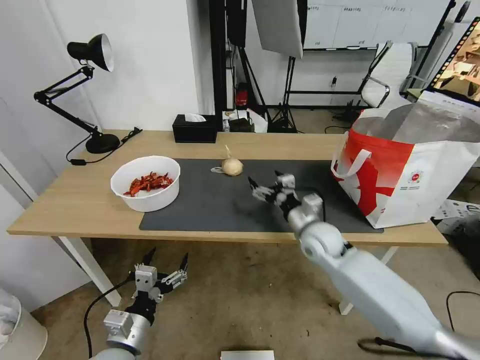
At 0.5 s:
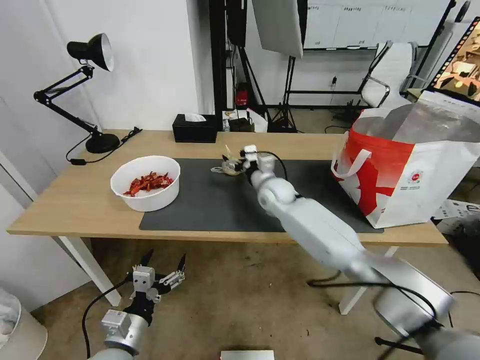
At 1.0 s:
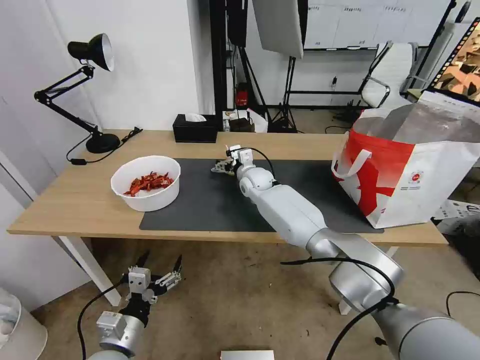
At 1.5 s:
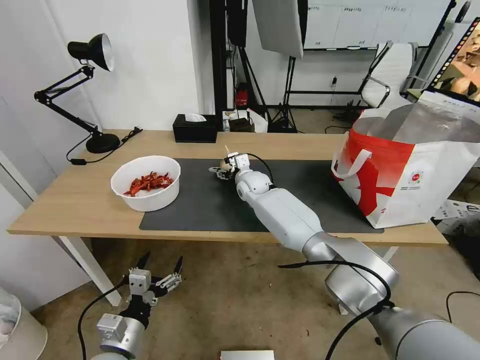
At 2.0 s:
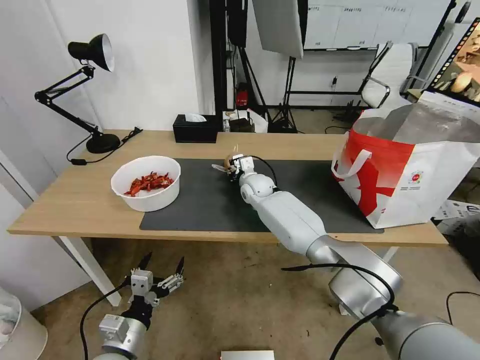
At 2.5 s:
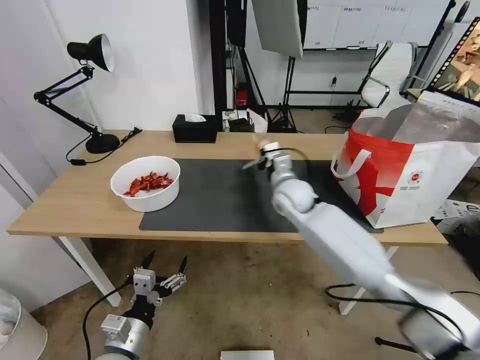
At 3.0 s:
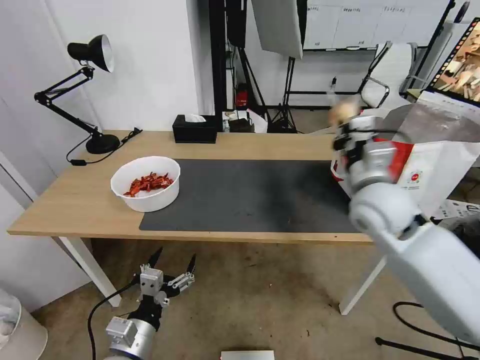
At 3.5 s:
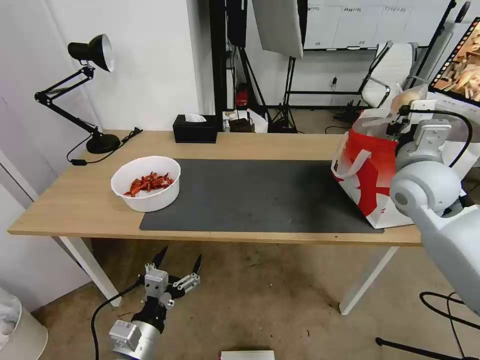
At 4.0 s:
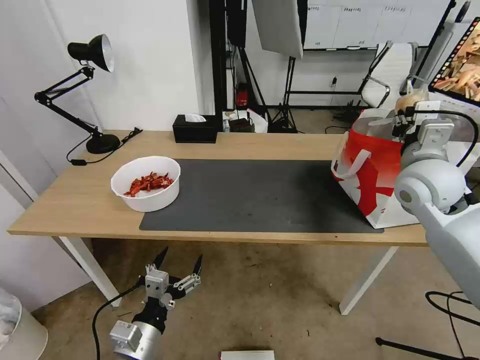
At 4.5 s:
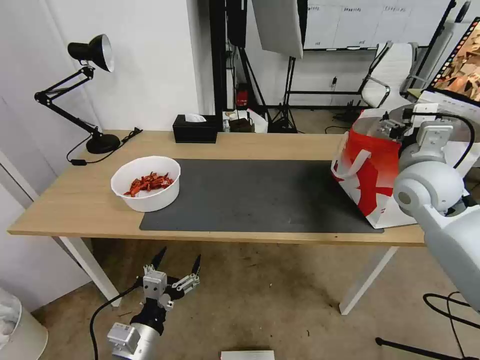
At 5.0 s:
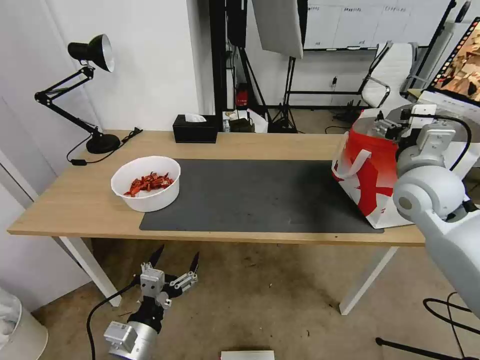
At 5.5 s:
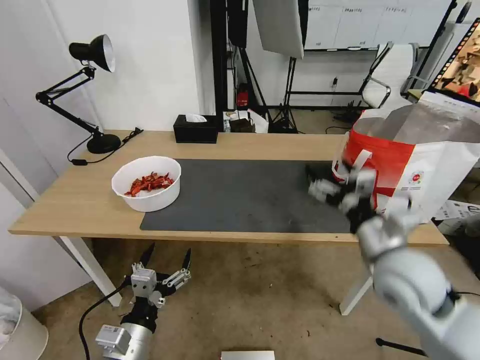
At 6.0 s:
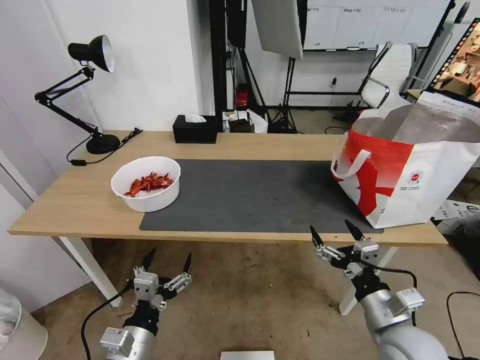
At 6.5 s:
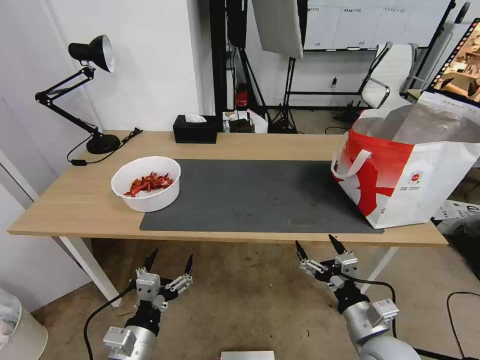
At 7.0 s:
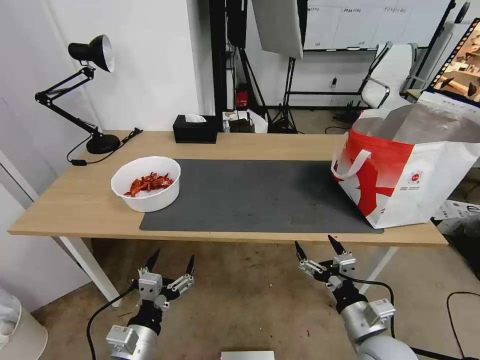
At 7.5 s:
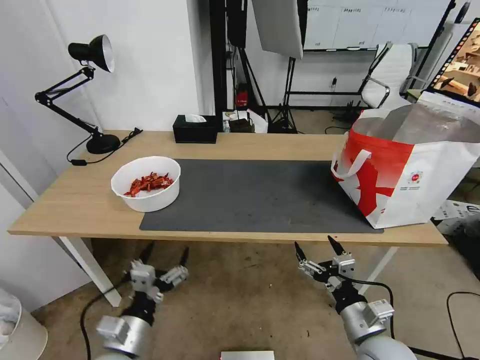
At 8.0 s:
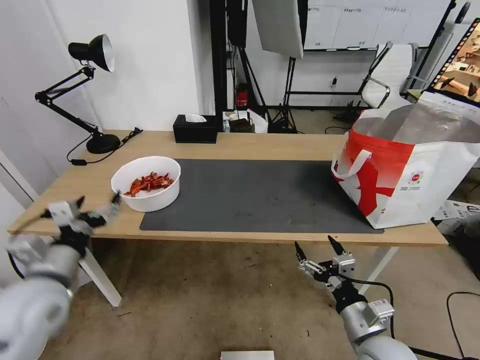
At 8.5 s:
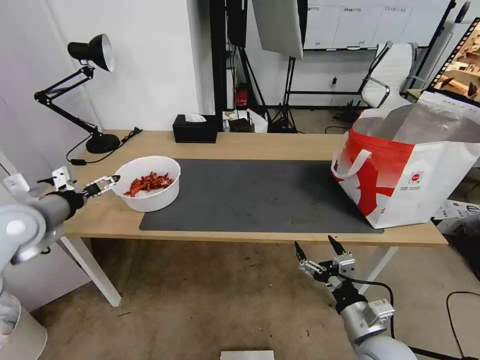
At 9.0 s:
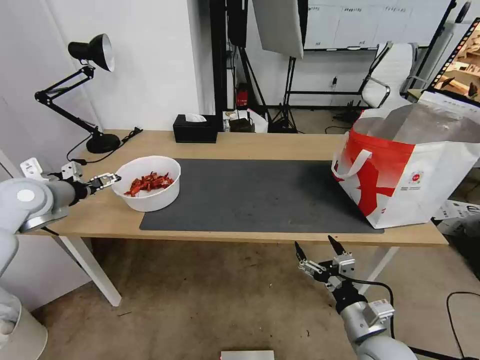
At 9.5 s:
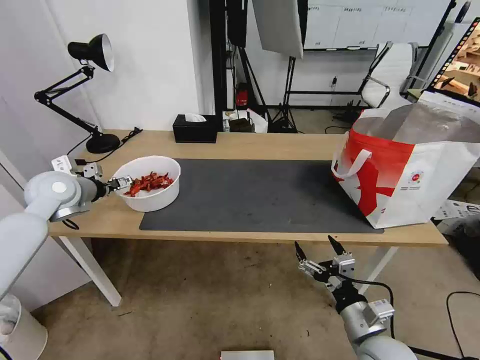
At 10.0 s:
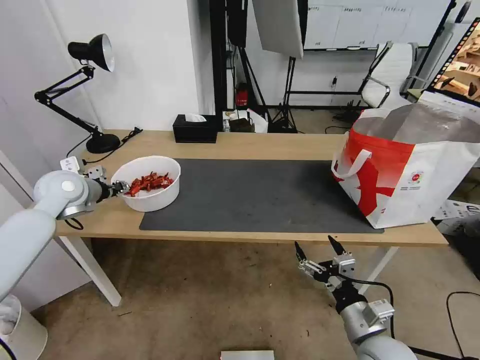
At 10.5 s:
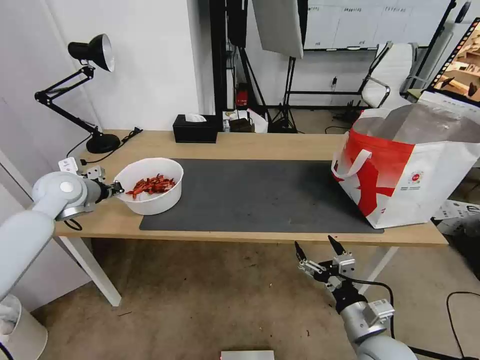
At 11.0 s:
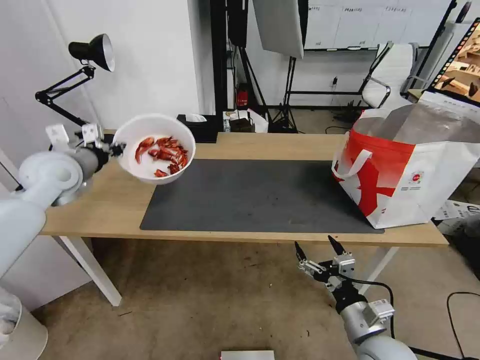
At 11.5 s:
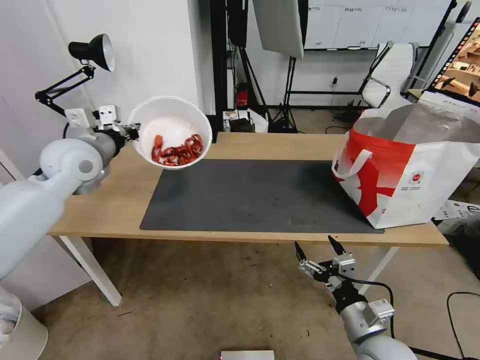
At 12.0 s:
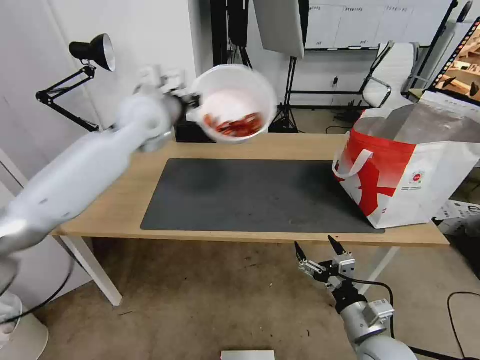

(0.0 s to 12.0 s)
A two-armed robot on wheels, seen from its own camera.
Task of the whole recording: Pick up the trash from the table and place it into the takeout bag.
0.0 s - 2.0 s: The right gripper travels forward and to the left by about 25 cm, and closes its fingers.
2.0 s - 4.0 s: The right gripper moves to the right, upward and backward, roughly 40 cm.
4.0 s - 6.0 s: The right gripper moves backward and downward, approximately 30 cm, and opens its fingers.
6.0 s - 8.0 s: The right gripper moves about 5 cm, while the left gripper moves to the left, upward and forward, approximately 20 cm.
8.0 s - 10.0 s: The left gripper is displaced forward by about 25 cm, and closes up.
10.0 s - 12.0 s: The left gripper shifts some 25 cm to the right and upward, and closes its fingers.

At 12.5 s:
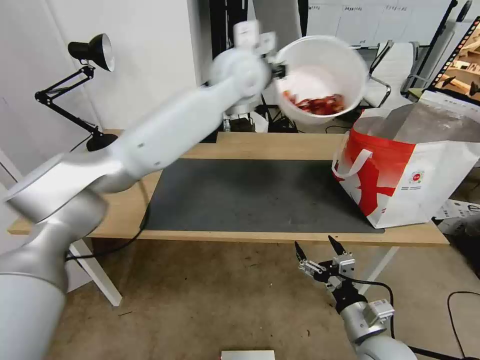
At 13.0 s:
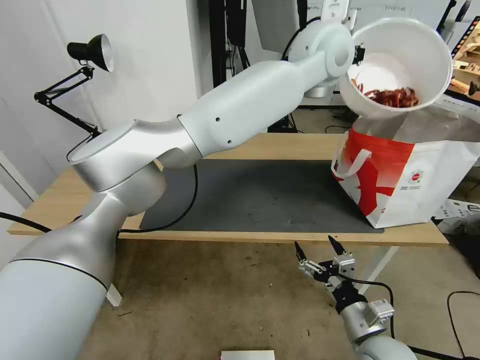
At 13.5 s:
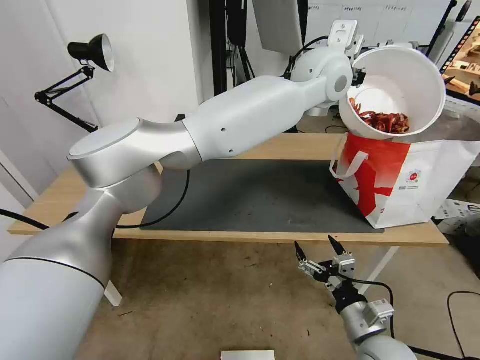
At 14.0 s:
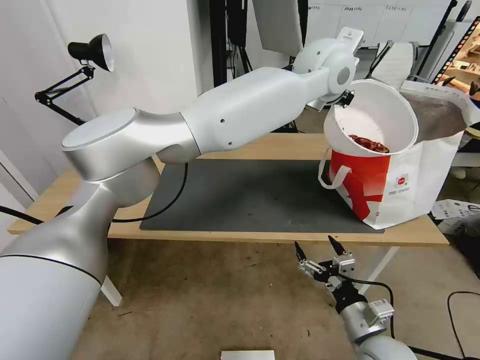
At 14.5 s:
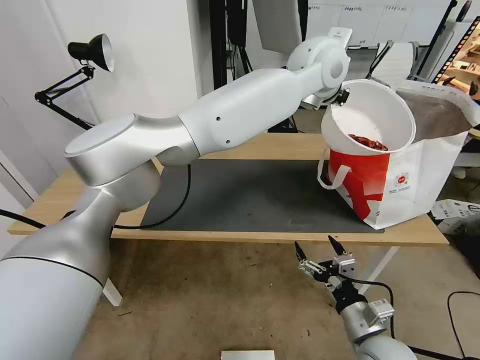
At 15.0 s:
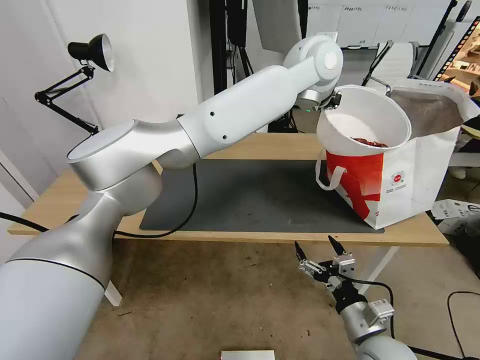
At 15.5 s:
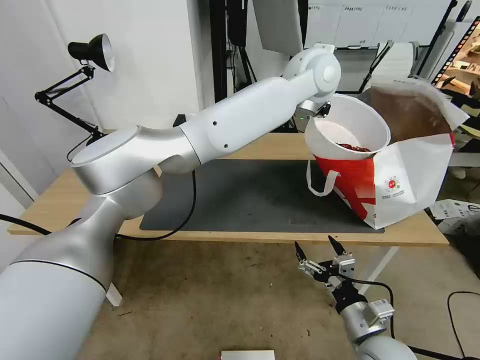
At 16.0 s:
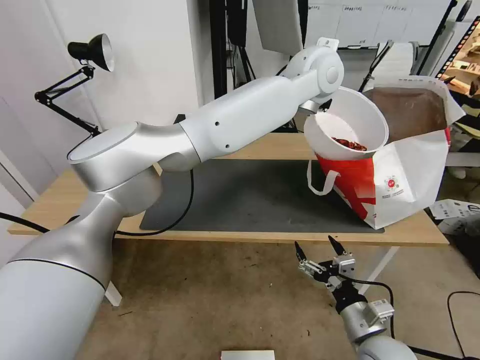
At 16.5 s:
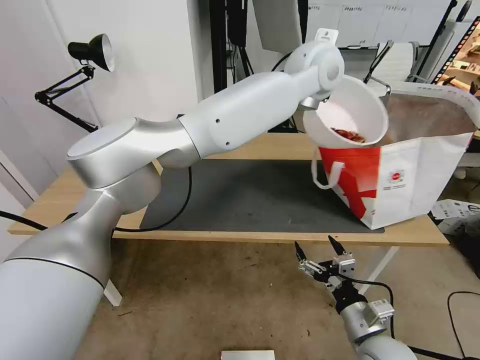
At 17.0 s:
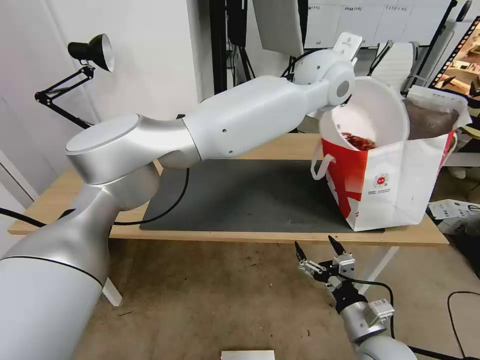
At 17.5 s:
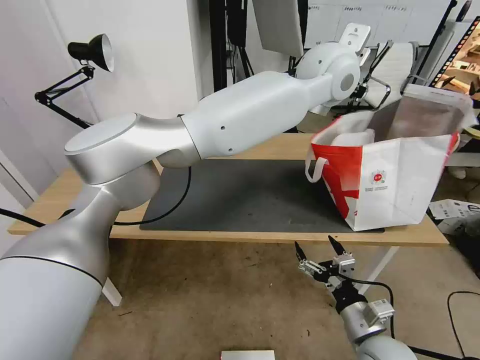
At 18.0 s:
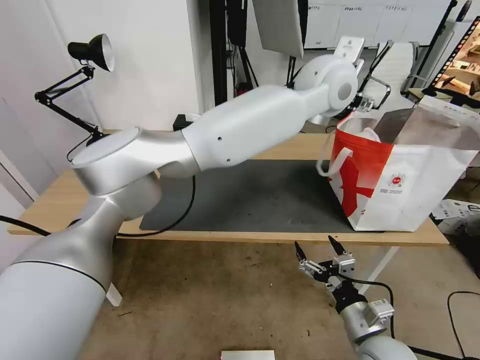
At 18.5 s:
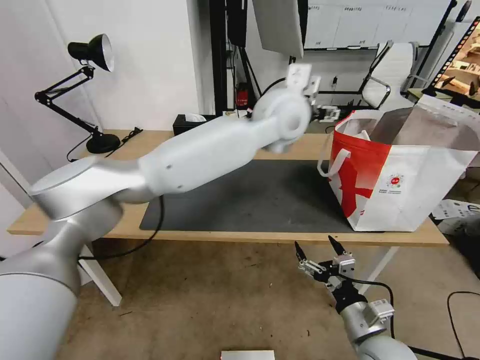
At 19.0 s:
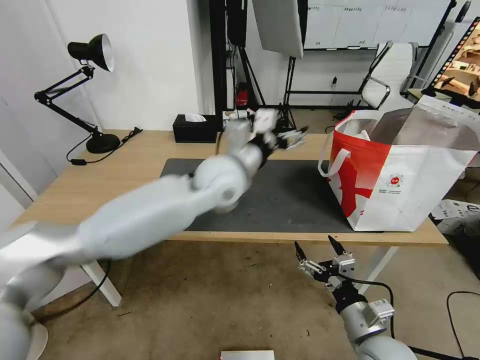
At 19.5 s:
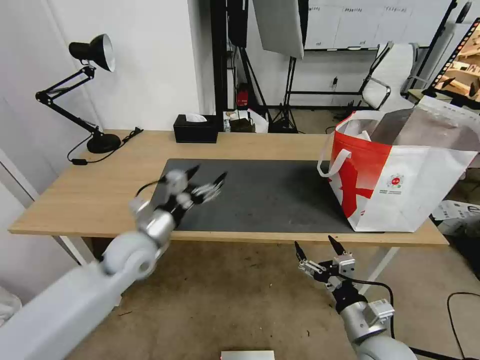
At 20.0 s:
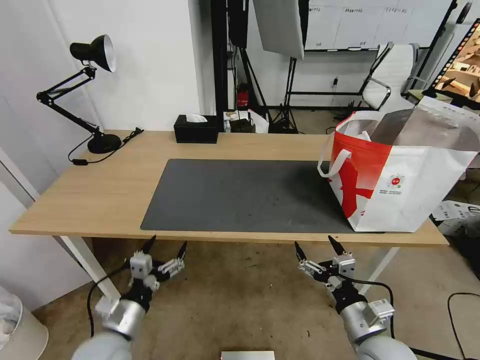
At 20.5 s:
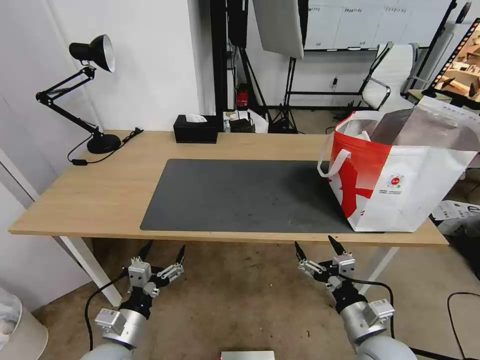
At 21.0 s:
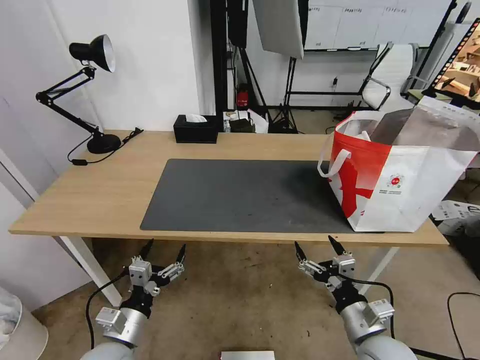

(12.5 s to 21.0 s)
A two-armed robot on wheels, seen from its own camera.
Task of the whole recording: Pick up the trash from the table and place it into the takeout bag.
12.5 s - 14.5 s: The left gripper heads to the right, covering about 15 cm.
14.5 s - 16.5 s: There are only small adjustments of the grippers.
16.5 s - 19.0 s: The left gripper goes about 25 cm to the left, downward and backward, and opens its fingers.
19.0 s - 21.0 s: The left gripper goes approximately 40 cm downward, backward and to the left.

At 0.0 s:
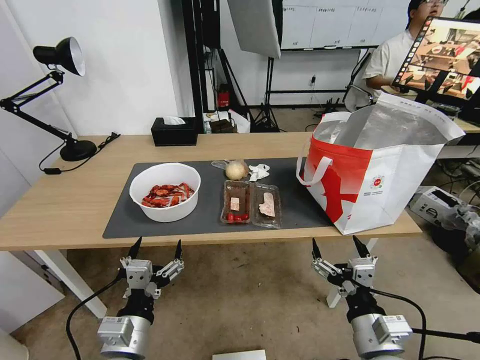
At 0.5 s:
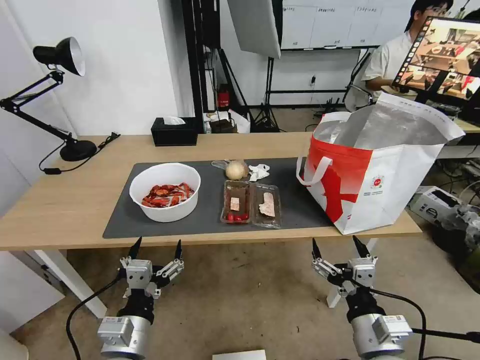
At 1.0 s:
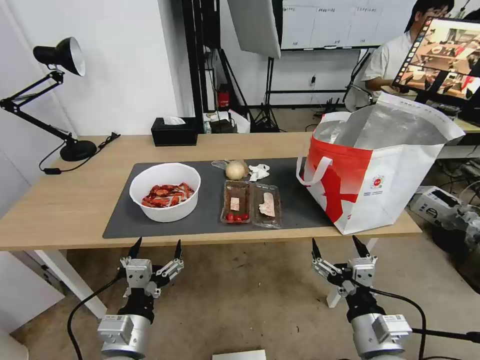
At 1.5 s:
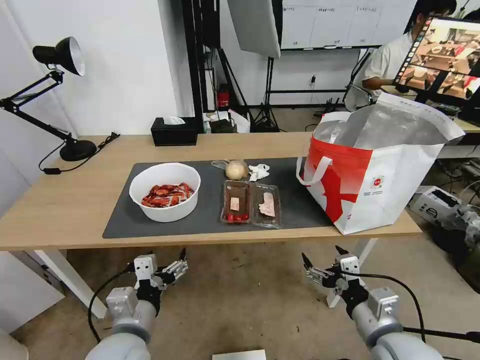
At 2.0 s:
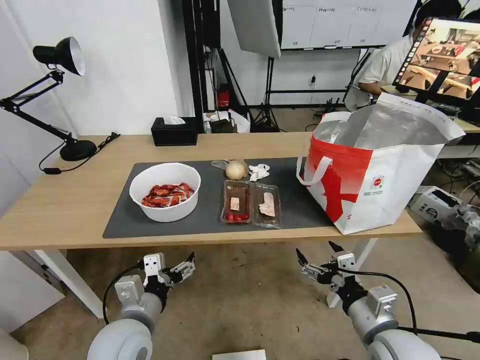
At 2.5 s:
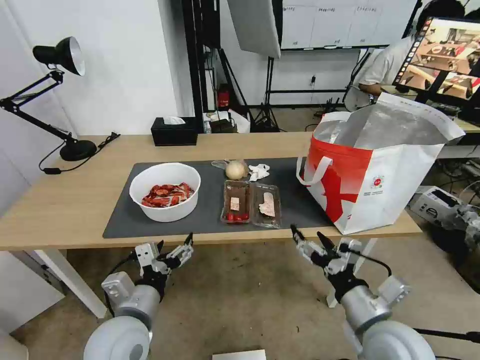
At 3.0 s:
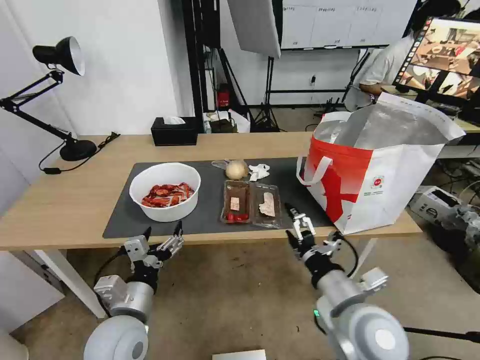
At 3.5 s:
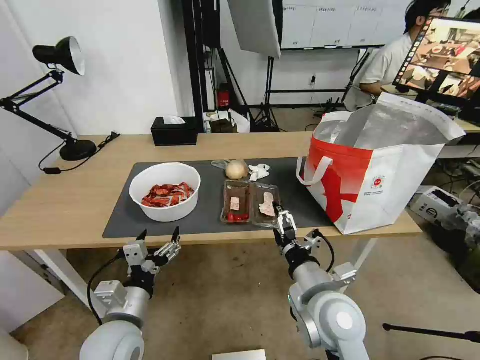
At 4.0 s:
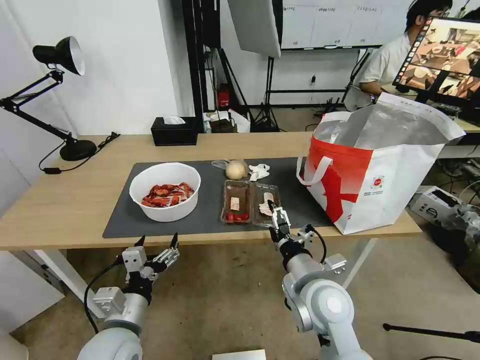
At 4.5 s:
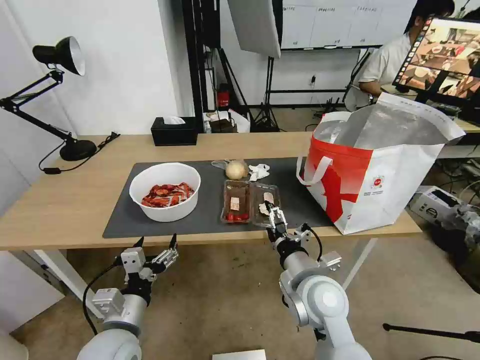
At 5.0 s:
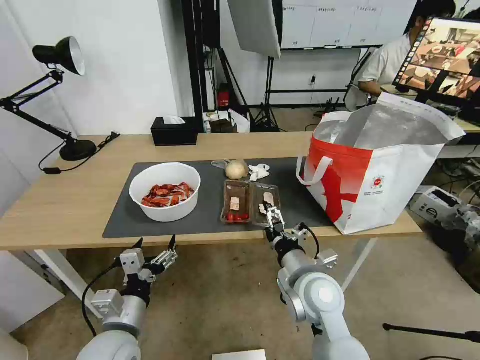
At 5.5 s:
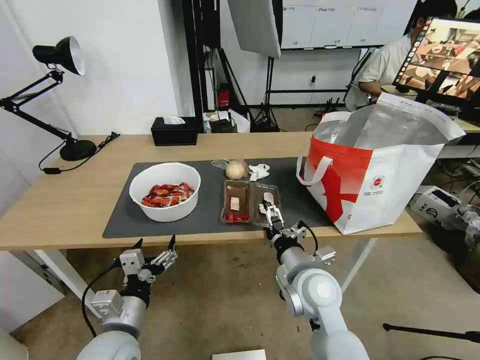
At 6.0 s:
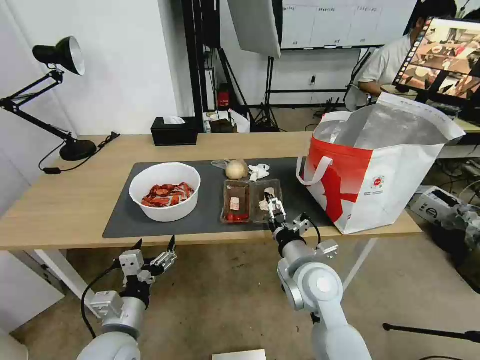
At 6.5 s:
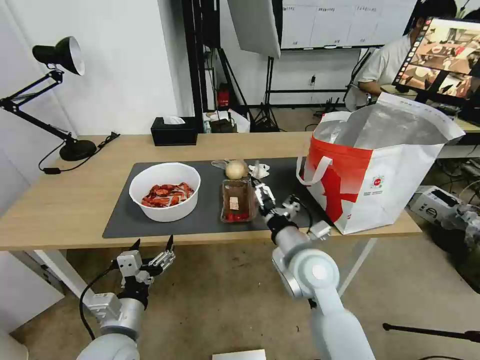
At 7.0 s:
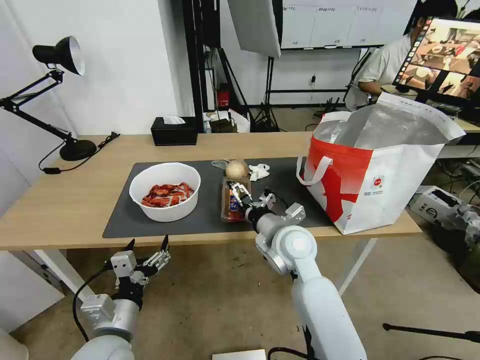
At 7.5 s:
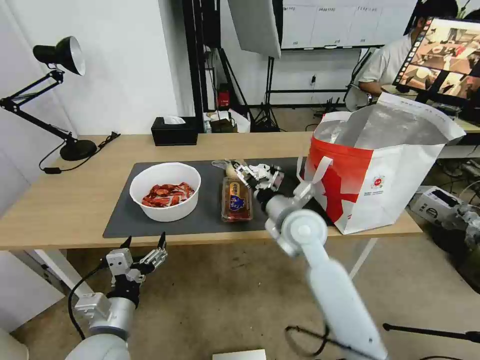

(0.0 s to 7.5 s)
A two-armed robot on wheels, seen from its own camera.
Task of the whole recording: Pick up the trash from the table and place it into the takeout bag.
2.0 s - 4.0 s: The right gripper travels to the left and forward by approximately 15 cm.
4.0 s - 5.5 s: The grippers move only a little.
5.5 s - 7.5 s: The right gripper shifts some 10 cm forward and upward.
